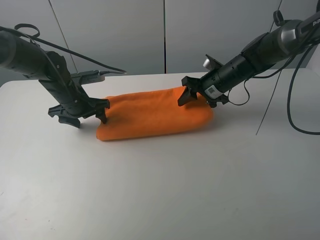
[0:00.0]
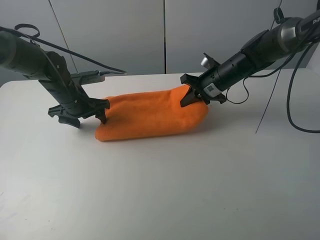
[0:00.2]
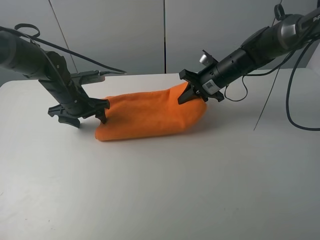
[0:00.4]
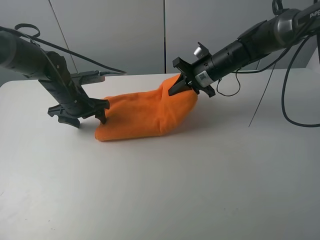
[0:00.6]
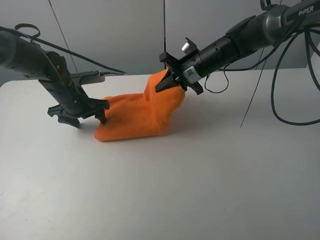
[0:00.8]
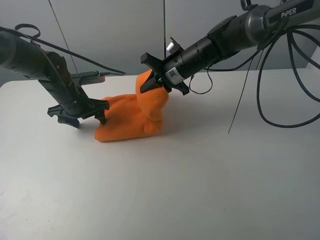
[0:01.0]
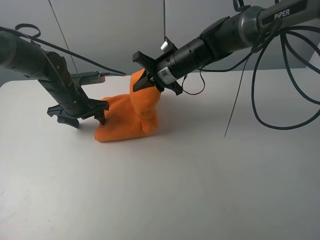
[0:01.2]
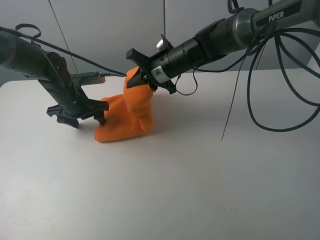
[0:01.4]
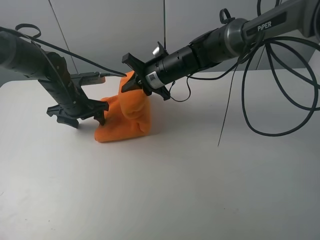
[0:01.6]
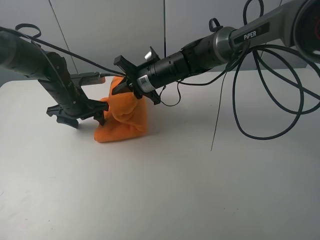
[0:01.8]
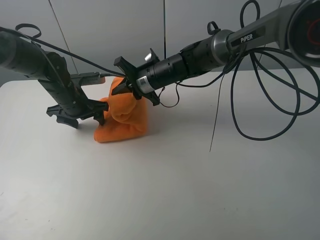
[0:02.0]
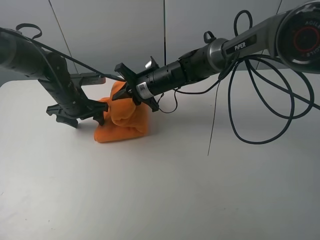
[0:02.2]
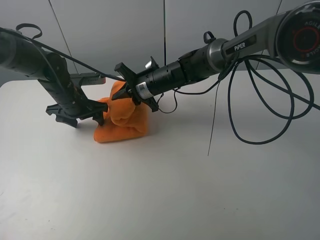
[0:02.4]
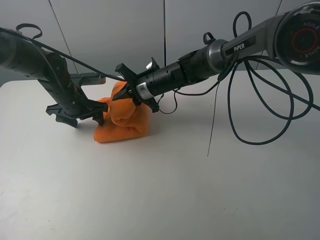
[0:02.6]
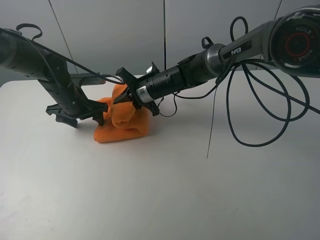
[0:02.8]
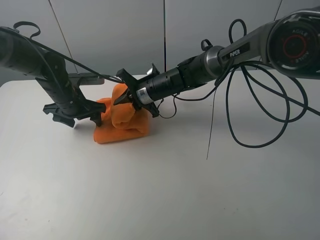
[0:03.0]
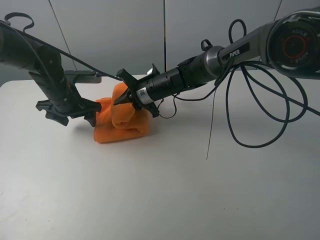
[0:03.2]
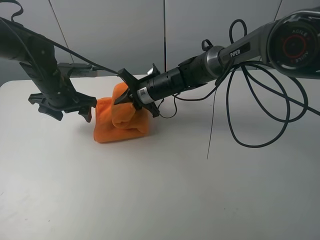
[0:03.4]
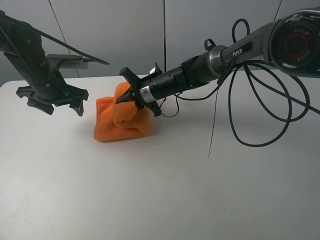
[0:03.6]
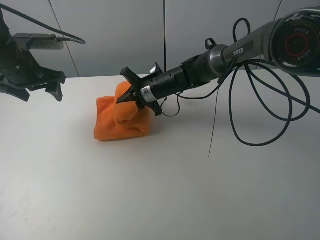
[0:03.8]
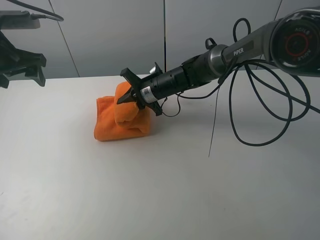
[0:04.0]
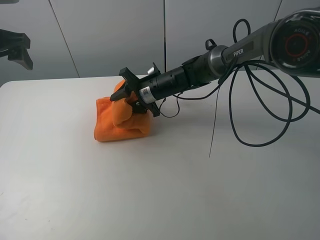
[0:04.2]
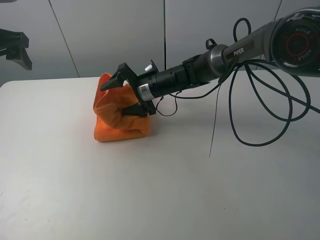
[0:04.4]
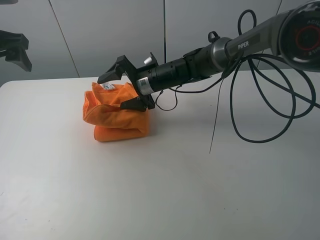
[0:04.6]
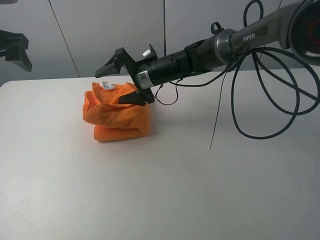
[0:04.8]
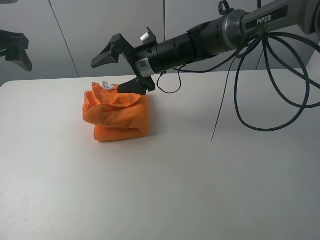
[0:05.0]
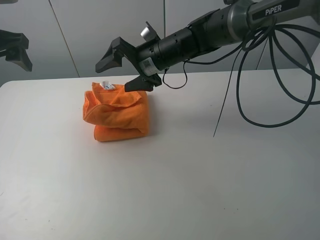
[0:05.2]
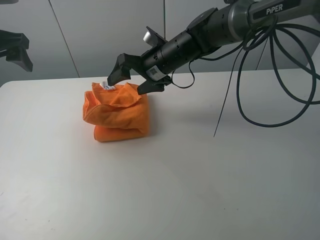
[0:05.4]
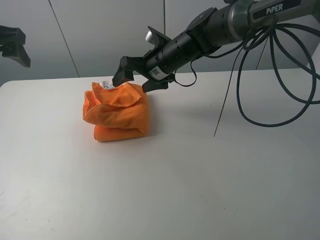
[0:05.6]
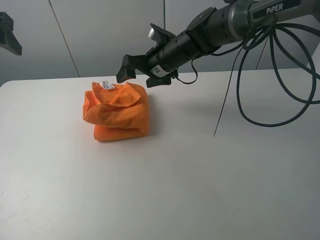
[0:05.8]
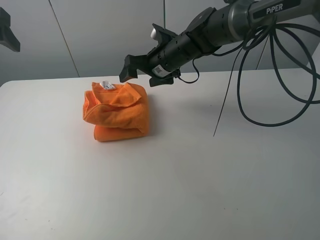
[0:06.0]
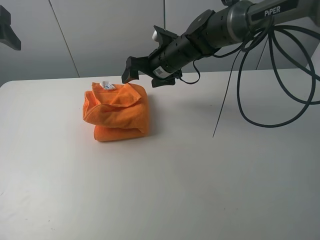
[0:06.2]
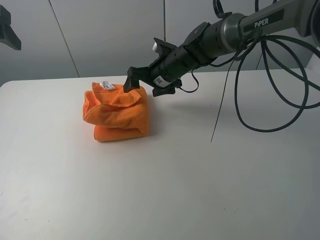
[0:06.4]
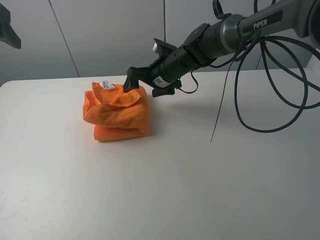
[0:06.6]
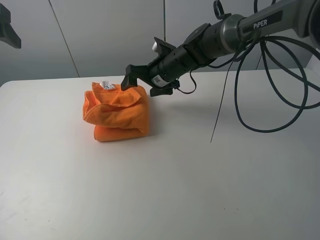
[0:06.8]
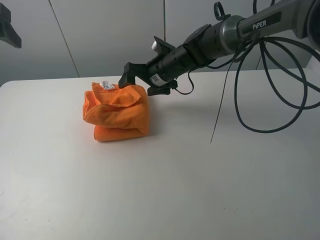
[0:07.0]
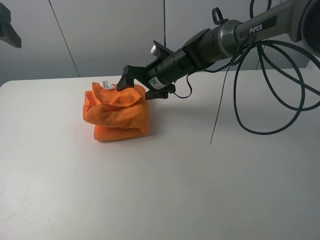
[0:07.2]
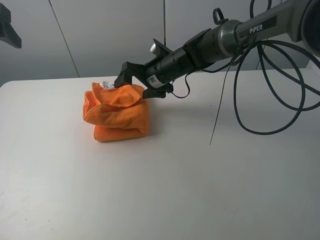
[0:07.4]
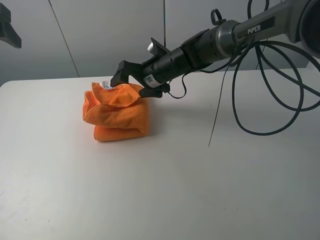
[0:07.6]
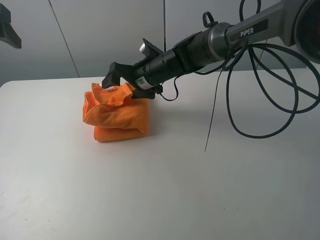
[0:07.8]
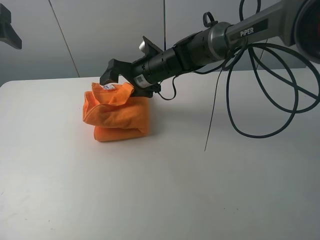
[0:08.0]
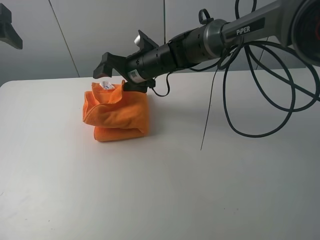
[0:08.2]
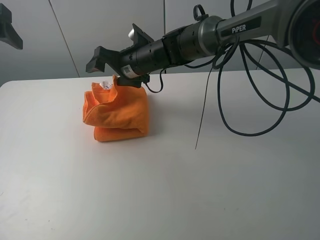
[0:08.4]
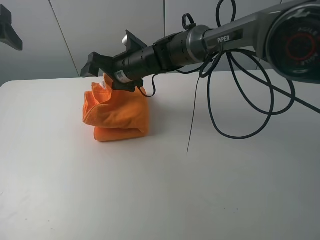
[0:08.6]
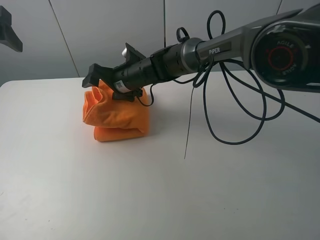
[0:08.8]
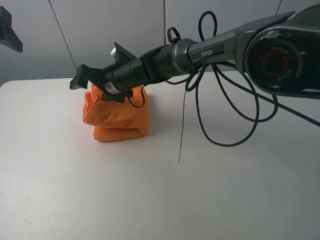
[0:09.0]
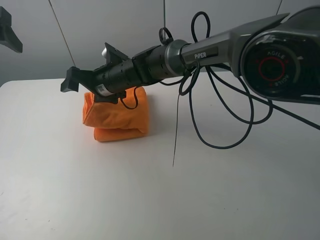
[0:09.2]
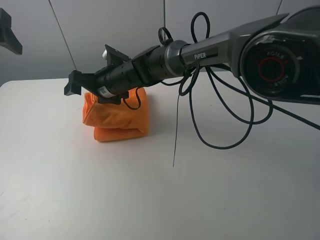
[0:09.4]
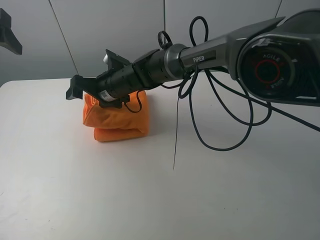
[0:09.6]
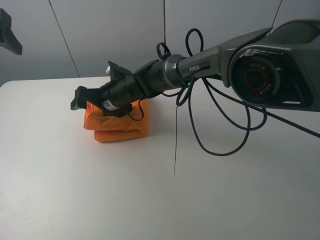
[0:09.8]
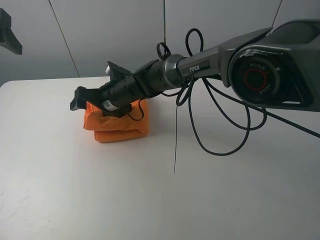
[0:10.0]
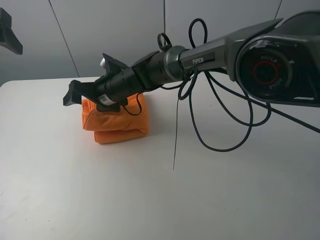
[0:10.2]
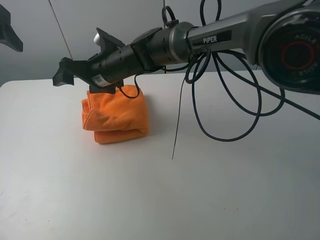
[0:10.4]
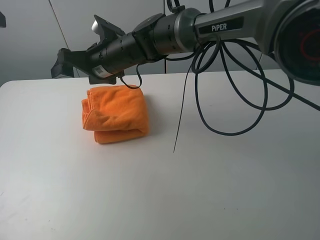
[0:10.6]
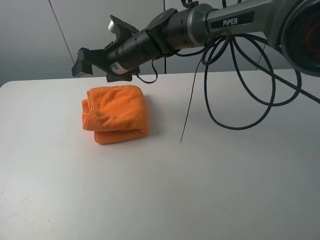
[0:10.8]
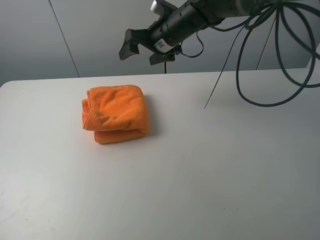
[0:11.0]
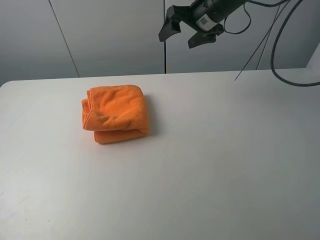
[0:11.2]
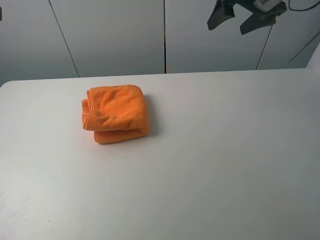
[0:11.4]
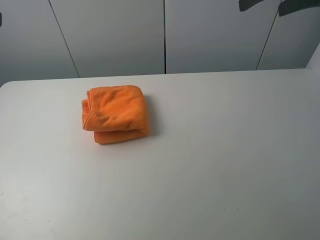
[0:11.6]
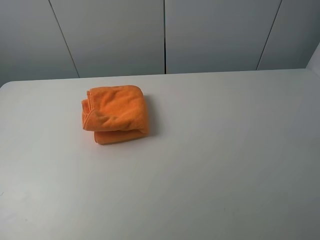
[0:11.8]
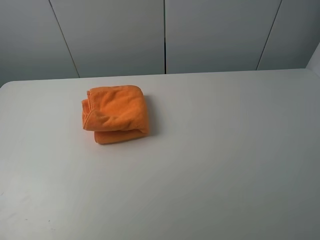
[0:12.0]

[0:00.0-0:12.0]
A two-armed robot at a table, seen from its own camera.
Task of the whole recording: fold the towels on the table.
Step, 0.0 to 4.8 s: Fold the orange towel from right to left with right gripper.
Step, 5.0 to 10.8 s: Arrange the orange towel with the right hand.
0.0 to 1.6 s: The right gripper shifts some 15 cm to the left, and closes up.
1.6 to 3.0 s: The right gripper ends up some 5 cm from where it was.
3.0 to 4.4 s: The left gripper goes approximately 20 cm upward and to the left. The right gripper opens.
4.4 to 6.0 s: The right gripper is displaced upward by some 5 cm.
6.0 to 7.6 s: The grippers stay close to where they were, moving slightly.
7.6 to 9.0 s: The right gripper heads to the left, covering roughly 10 cm.
9.0 to 10.4 s: The grippers stay close to where they were, moving slightly.
10.4 to 12.0 s: The right gripper shifts some 50 cm to the right, backward and upward. Meanwhile the left gripper moves backward, some 15 cm.

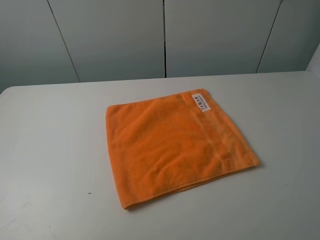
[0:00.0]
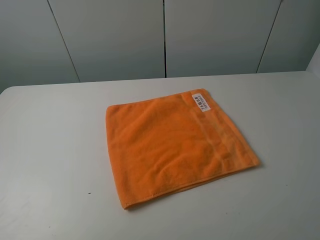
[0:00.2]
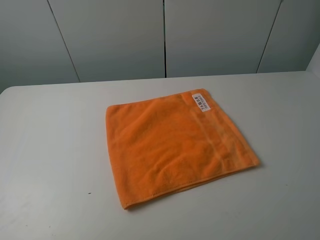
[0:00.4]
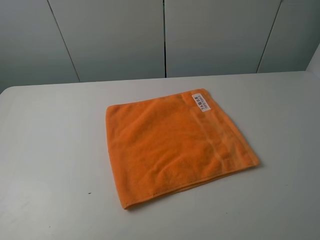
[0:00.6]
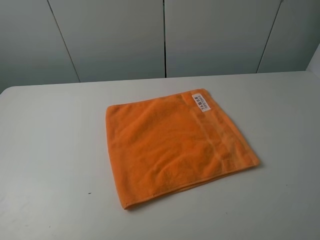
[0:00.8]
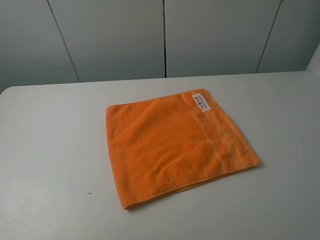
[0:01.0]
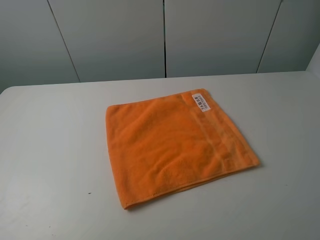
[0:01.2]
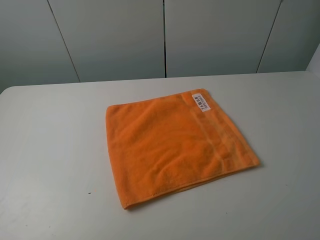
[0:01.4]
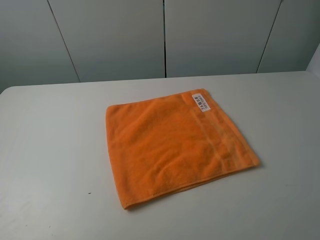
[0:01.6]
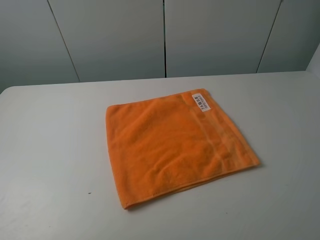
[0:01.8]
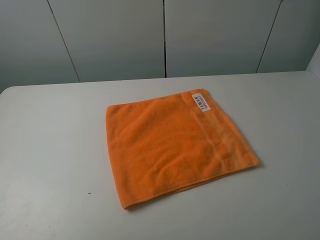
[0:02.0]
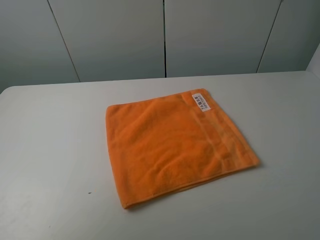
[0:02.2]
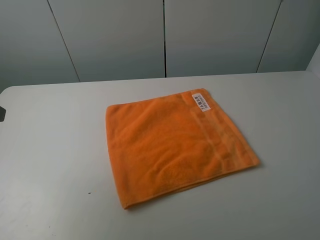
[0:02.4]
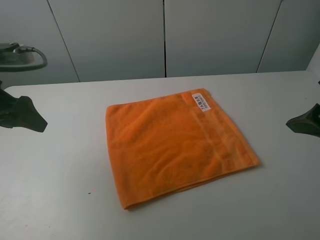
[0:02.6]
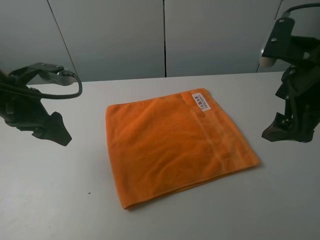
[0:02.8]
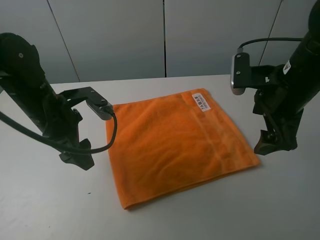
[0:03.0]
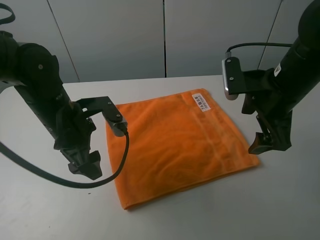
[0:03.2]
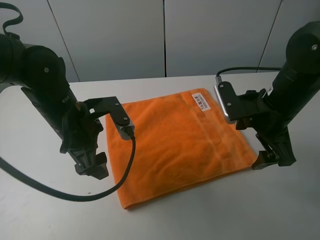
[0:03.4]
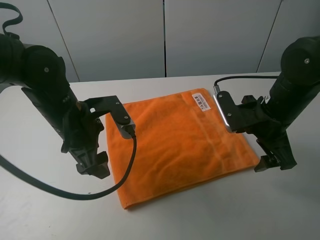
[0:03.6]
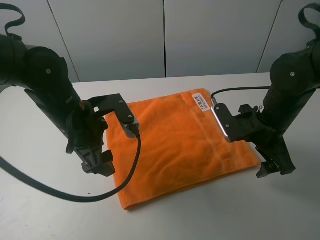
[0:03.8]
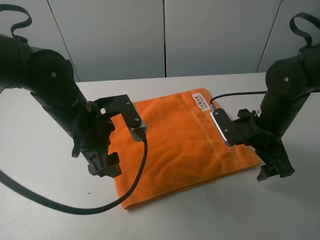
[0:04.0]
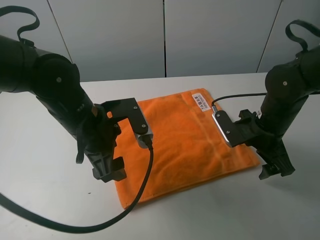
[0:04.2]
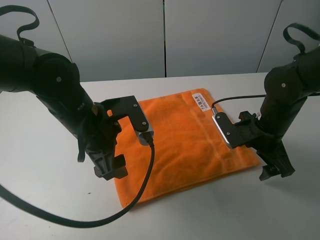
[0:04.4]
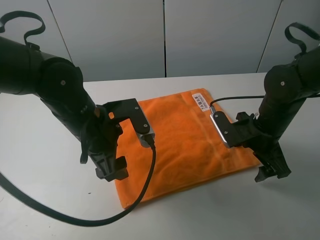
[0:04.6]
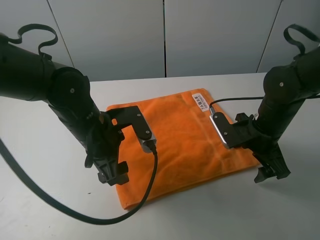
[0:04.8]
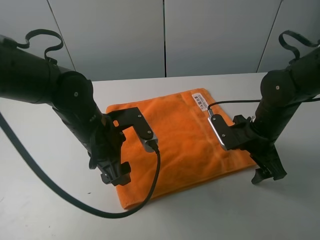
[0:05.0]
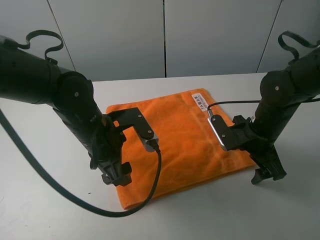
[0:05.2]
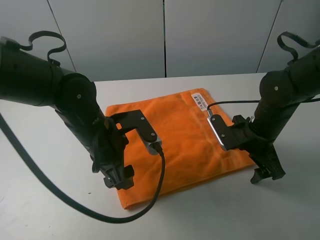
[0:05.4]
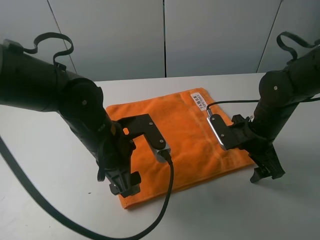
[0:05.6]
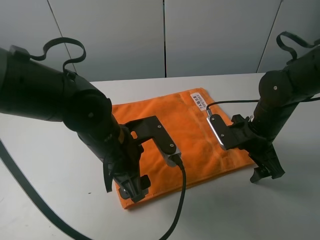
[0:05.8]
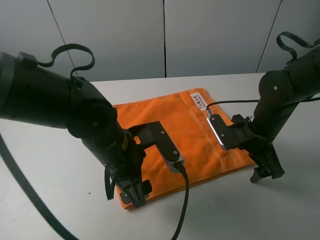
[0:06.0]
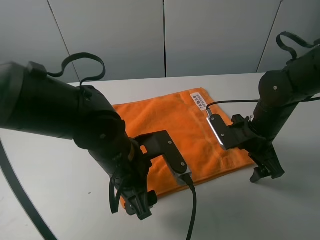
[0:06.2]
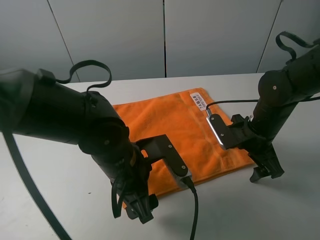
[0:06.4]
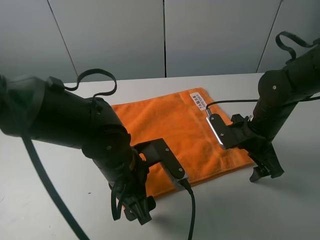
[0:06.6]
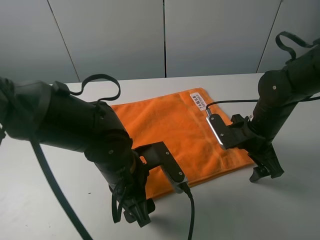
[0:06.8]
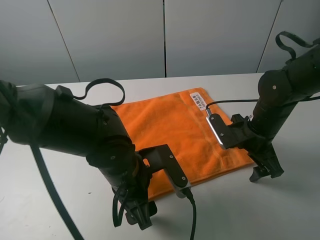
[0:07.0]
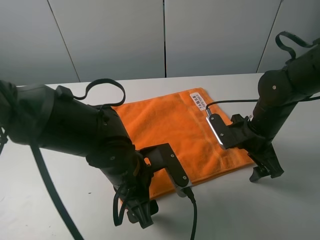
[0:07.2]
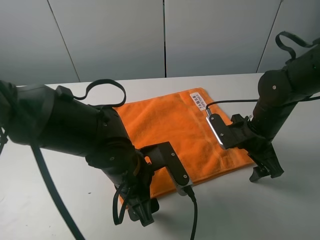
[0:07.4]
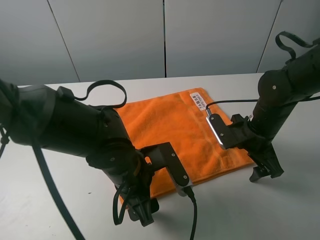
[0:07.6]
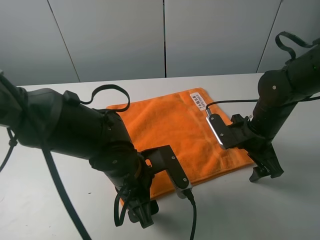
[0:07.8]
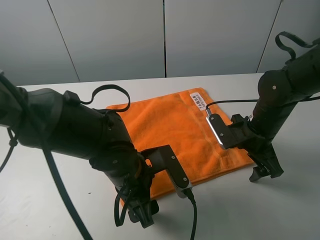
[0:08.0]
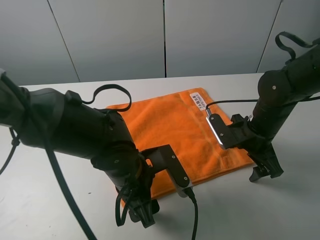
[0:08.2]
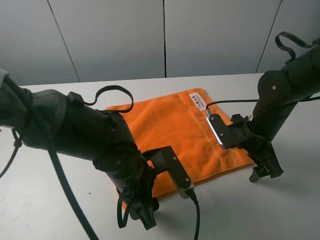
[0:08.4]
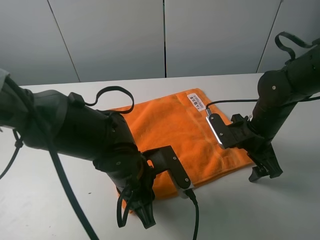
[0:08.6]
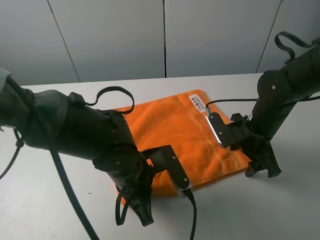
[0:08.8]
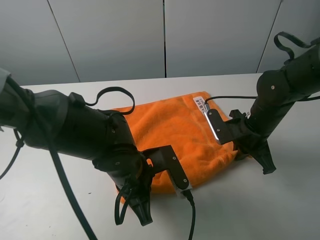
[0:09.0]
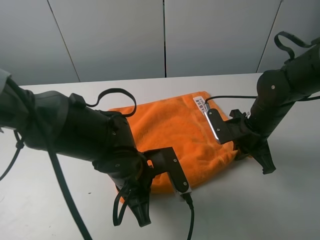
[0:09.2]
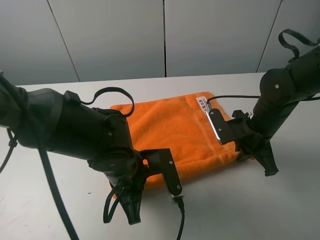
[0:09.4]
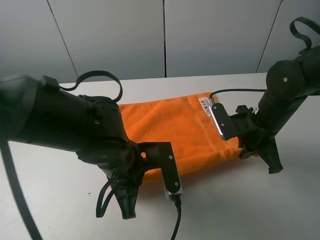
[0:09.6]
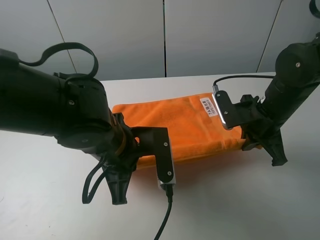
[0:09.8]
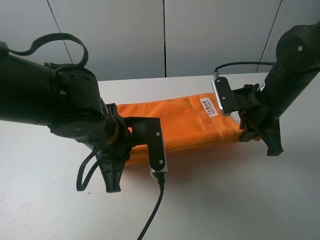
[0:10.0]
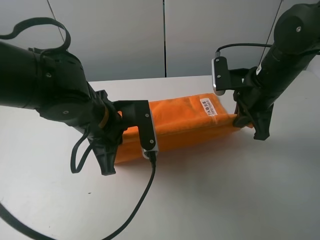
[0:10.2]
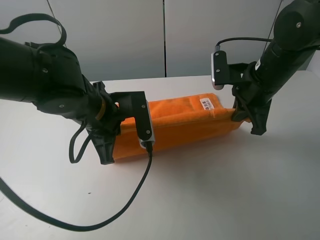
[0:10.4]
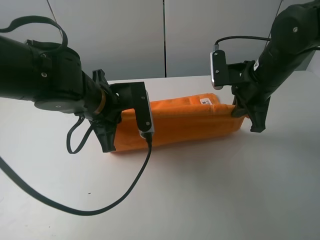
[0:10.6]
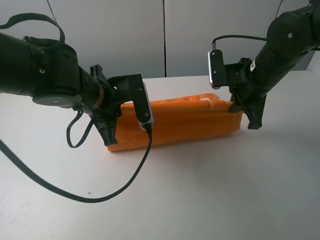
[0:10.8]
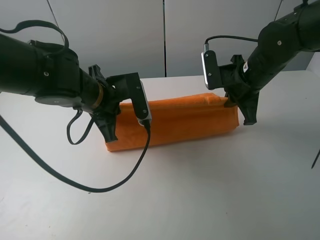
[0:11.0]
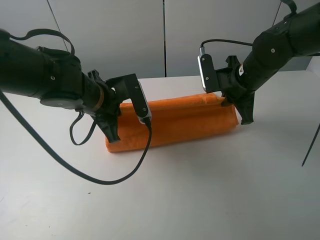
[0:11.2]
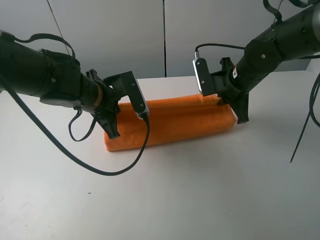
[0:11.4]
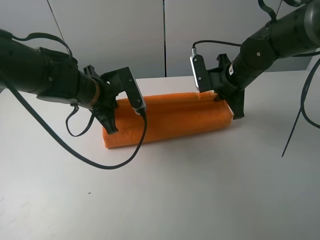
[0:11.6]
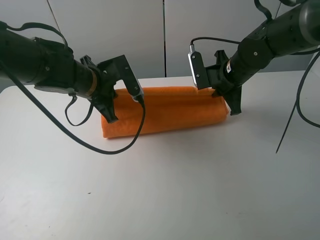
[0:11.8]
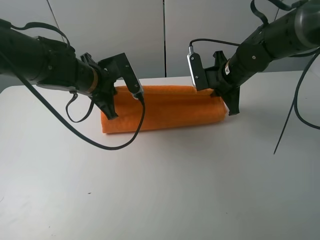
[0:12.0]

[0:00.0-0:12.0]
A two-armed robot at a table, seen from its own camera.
Task of the whole recording: fold the towels on the table.
Step, 0.0 to 8.8 s: Grasp the orange towel with the right gripper.
0.0 to 1.6 s: Both grippers stay put.
1.6 to 3.0 s: The right gripper travels forward by about 25 cm. The left gripper heads forward, to the right and downward, covering roughly 30 cm.
3.0 to 4.4 s: The left gripper moves to the right, roughly 5 cm, while the right gripper goes roughly 10 cm downward.
4.4 to 6.0 s: The left gripper ends up approximately 5 cm from where it was.
6.0 to 7.6 s: There are only small adjustments of the grippers.
7.6 to 9.0 s: The right gripper closes up, while the left gripper closes.
9.0 to 10.4 s: The right gripper goes roughly 10 cm upward, while the left gripper travels upward, forward and to the left by roughly 10 cm.
10.4 to 12.0 s: The grippers both shift forward by about 10 cm.
